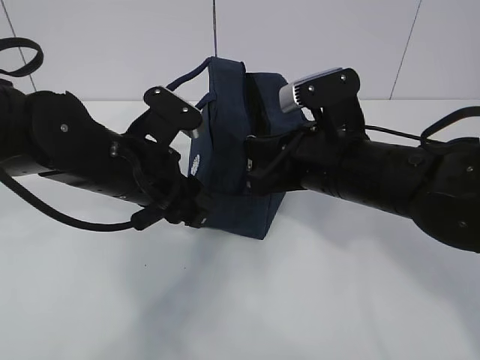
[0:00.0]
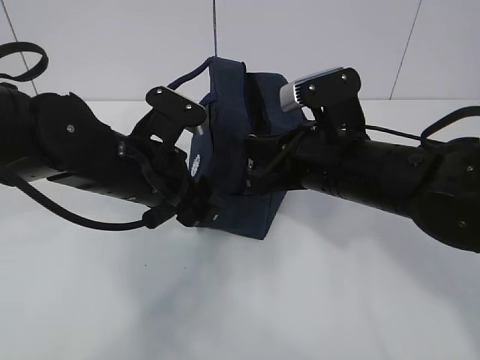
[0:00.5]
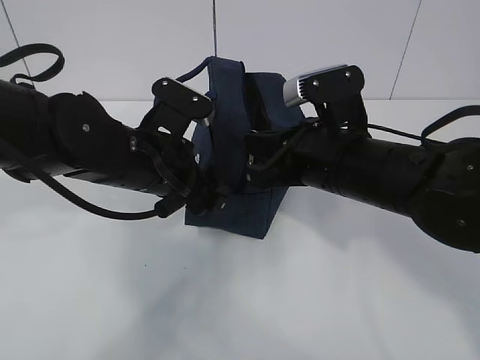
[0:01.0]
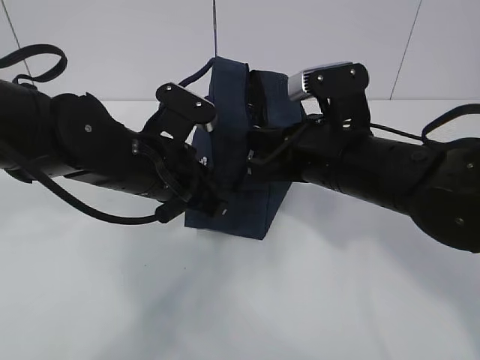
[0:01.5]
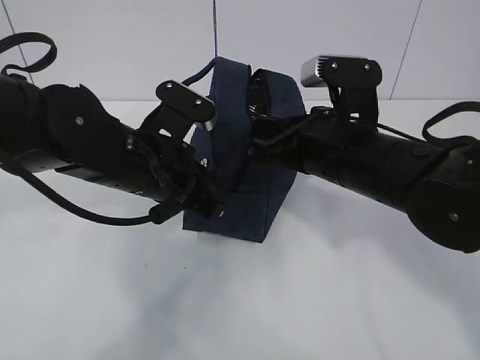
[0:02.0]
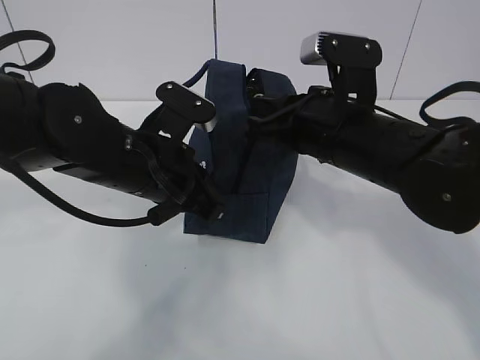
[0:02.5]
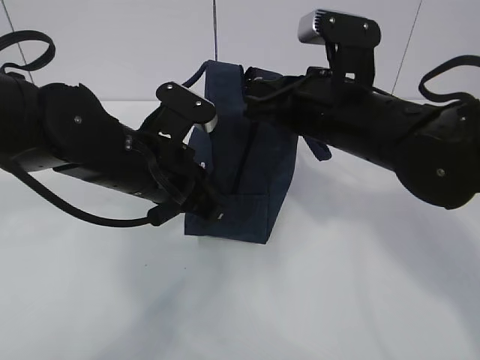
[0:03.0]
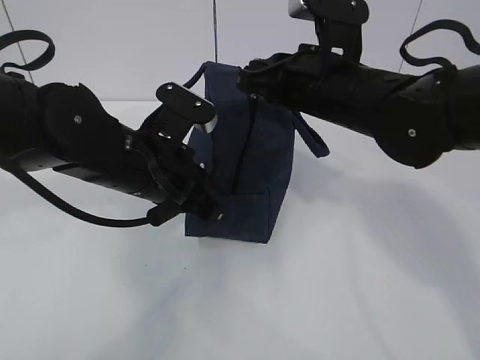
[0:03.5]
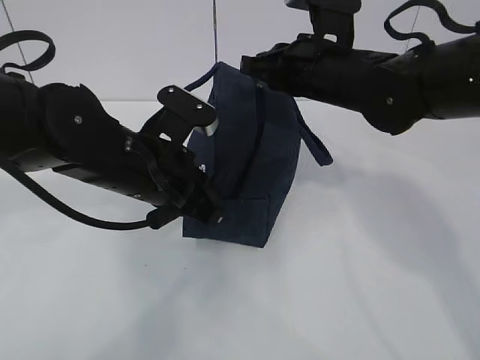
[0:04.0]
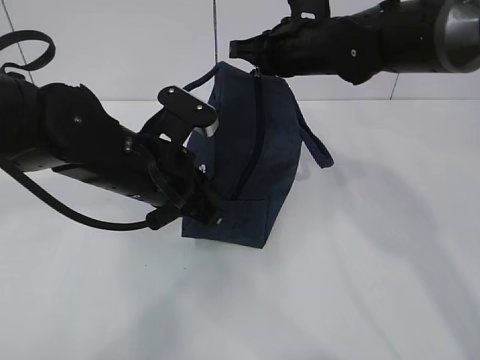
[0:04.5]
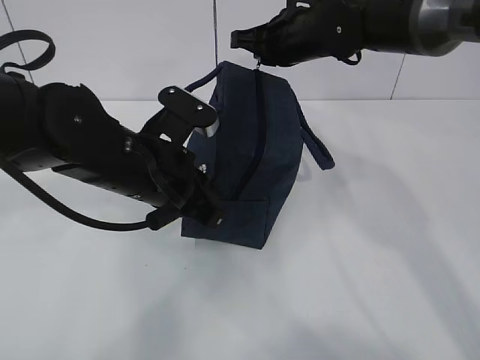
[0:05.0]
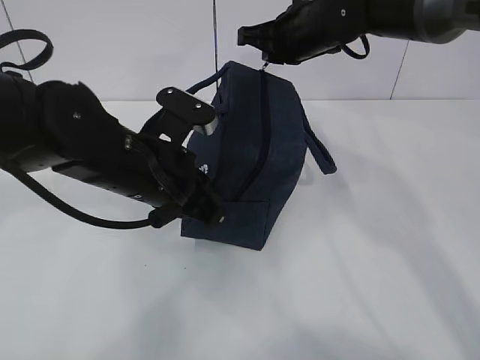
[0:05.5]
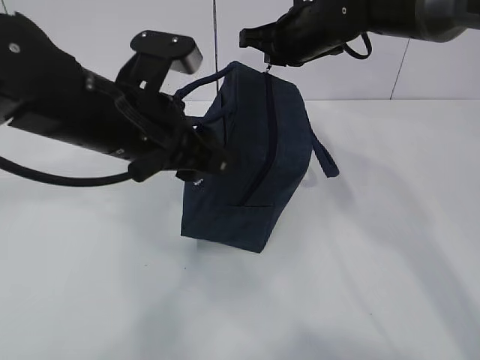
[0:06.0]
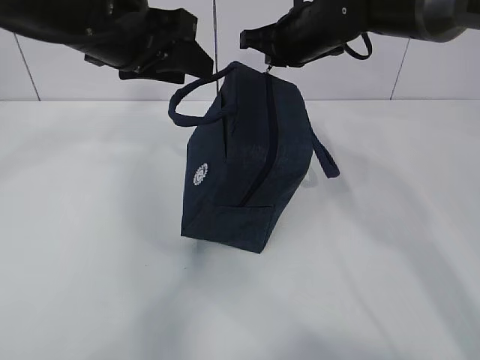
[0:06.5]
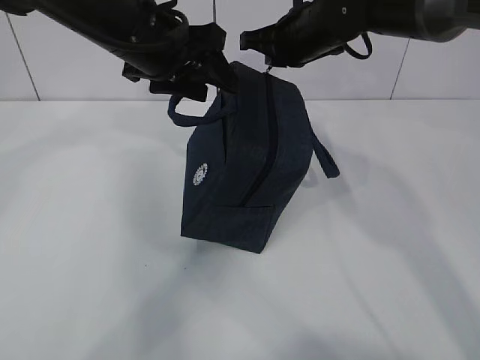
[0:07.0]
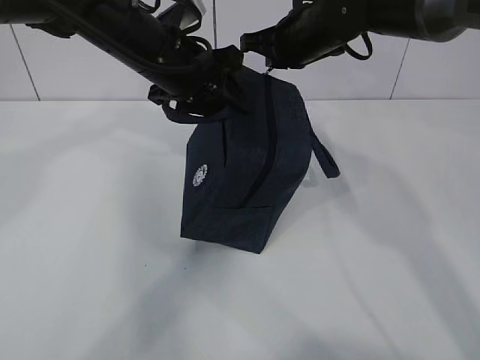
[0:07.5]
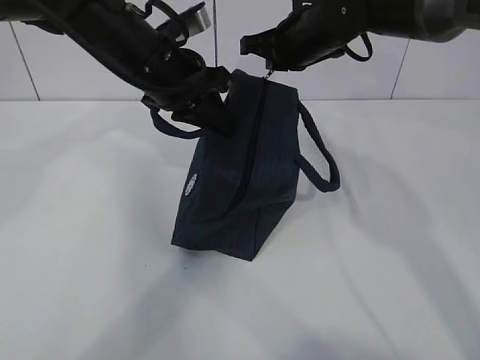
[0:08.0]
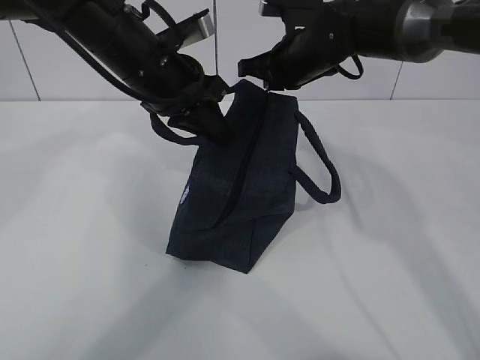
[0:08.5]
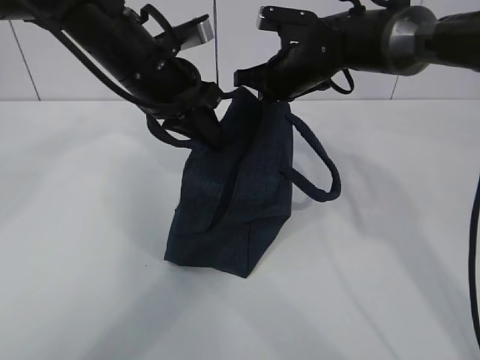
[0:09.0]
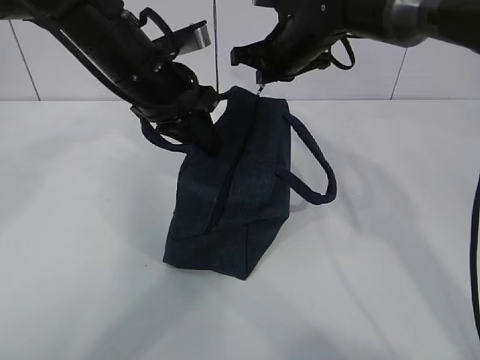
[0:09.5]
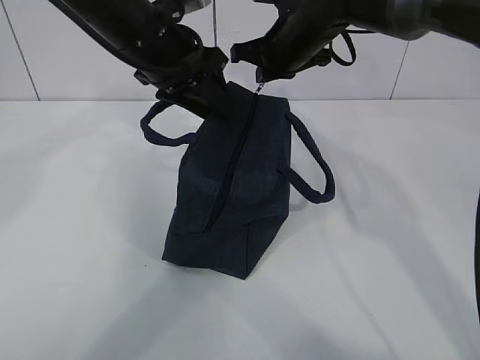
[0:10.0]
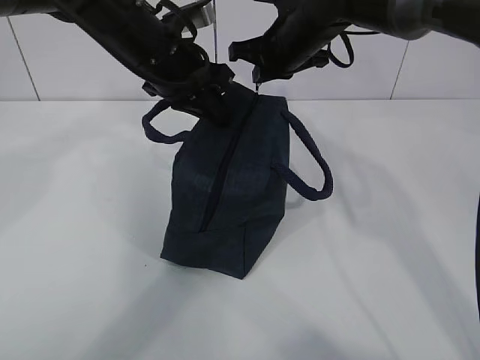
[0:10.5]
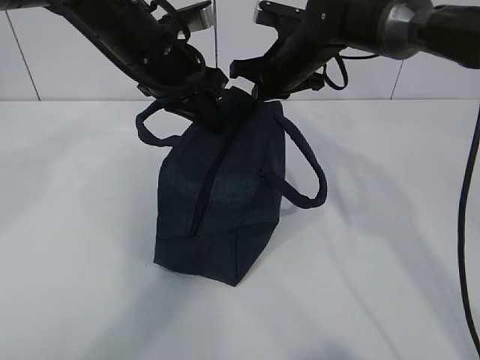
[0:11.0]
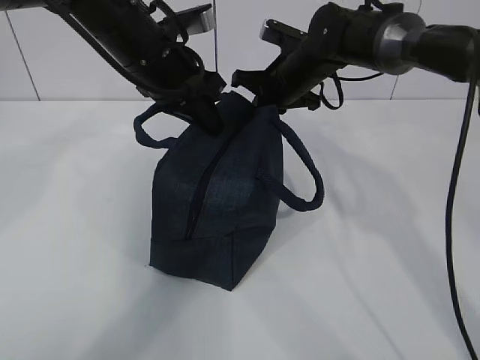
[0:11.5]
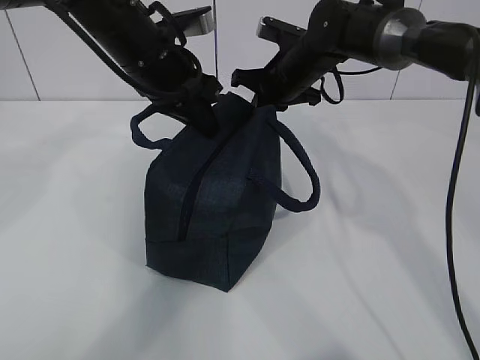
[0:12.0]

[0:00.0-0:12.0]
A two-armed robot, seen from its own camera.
0:00.0 to 0:02.0: The left gripper closes up.
0:02.0 to 0:04.0: The right gripper travels forward by roughly 10 cm.
0:04.0 to 0:06.0: The left gripper heads upward, covering some 5 cm, and opens its fingers, while the right gripper is displaced forward by some 10 cm.
0:06.0 to 0:08.0: The left gripper goes some 10 cm forward, and closes.
0:08.0 to 0:10.0: The left gripper opens up.
0:10.0 to 0:12.0: The right gripper heads downward, covering some 5 cm. Meanwhile the left gripper closes up.

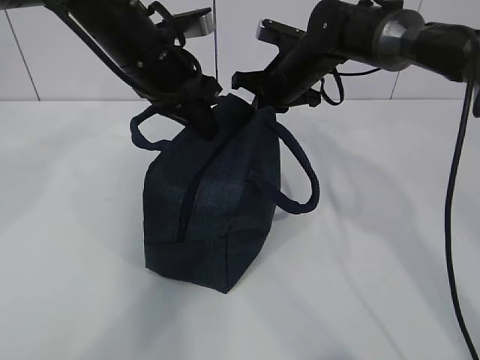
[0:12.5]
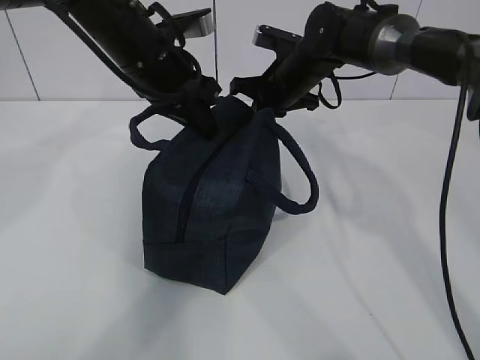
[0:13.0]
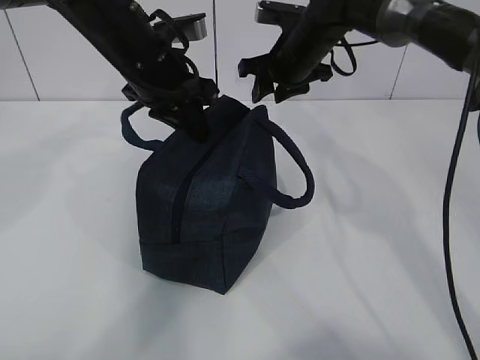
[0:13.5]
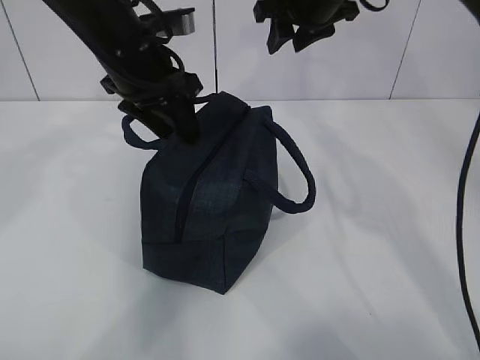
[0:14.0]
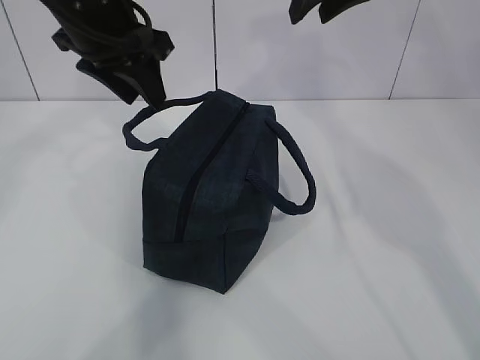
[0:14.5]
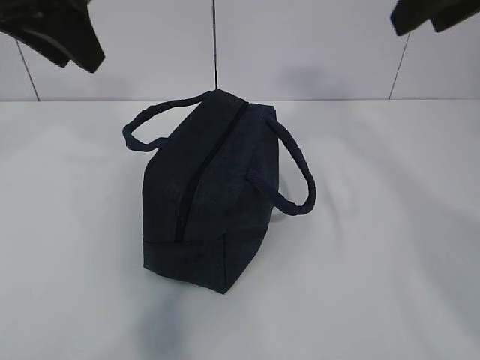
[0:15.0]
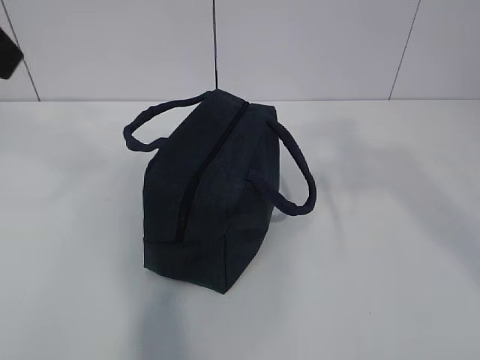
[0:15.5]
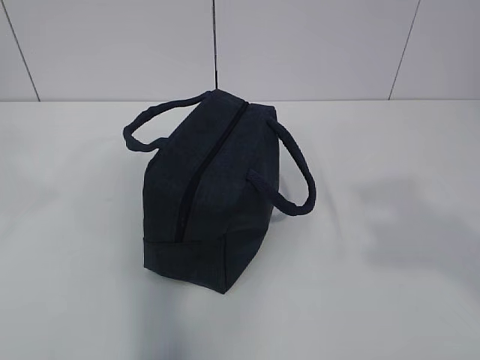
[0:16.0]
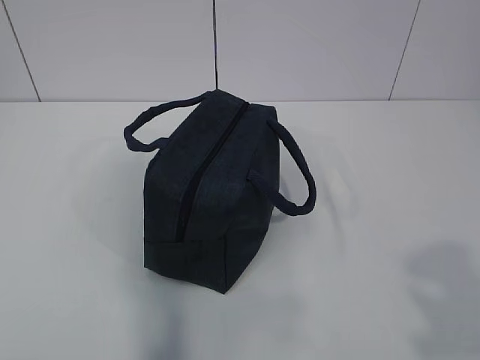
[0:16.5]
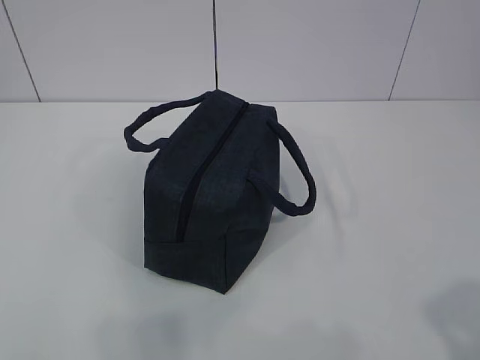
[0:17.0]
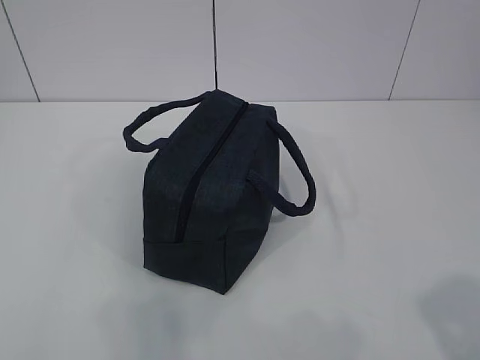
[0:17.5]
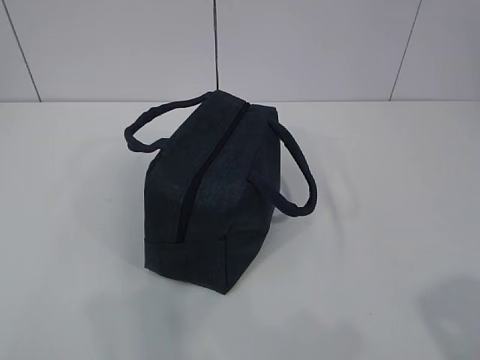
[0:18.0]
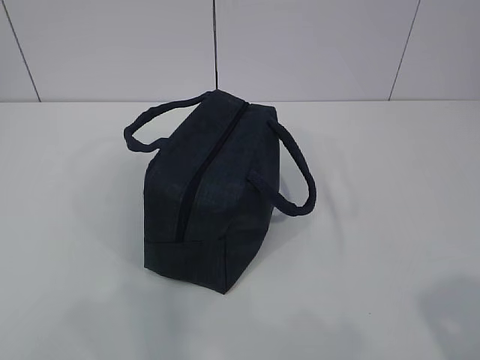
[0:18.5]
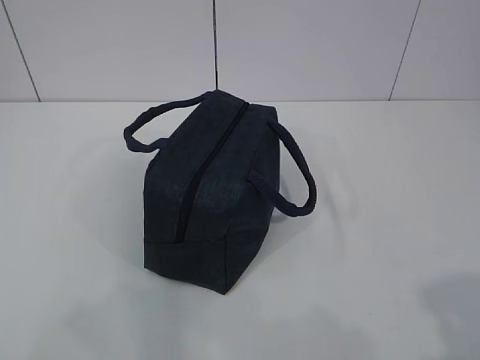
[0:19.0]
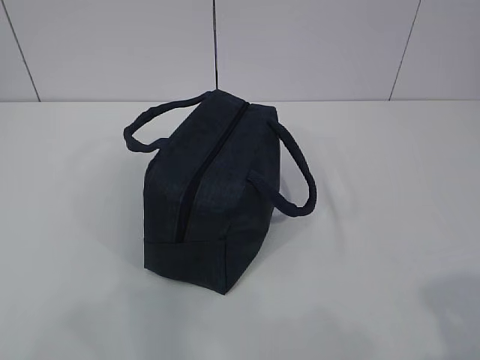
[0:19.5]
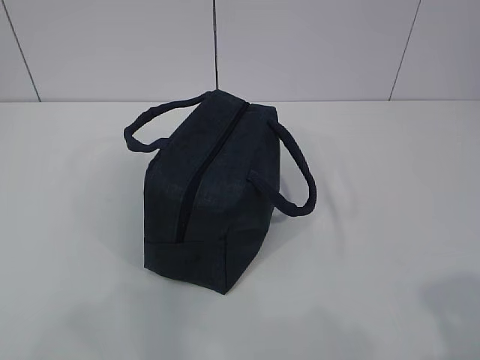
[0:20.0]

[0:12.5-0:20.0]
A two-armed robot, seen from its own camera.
0:12.5 to 0:14.5: The right gripper moves upward and backward, about 20 cm, and opens up; the left gripper moves upward, some 5 cm, and opens up.
0:14.5 to 0:16.5: The left gripper is displaced backward and to the left by roughly 40 cm, while the right gripper goes roughly 50 cm backward.
0:16.5 to 0:18.0: The two grippers go some 10 cm downward.
